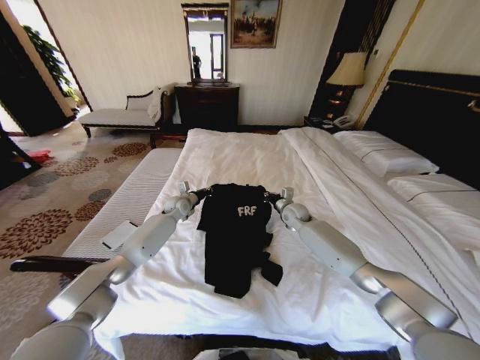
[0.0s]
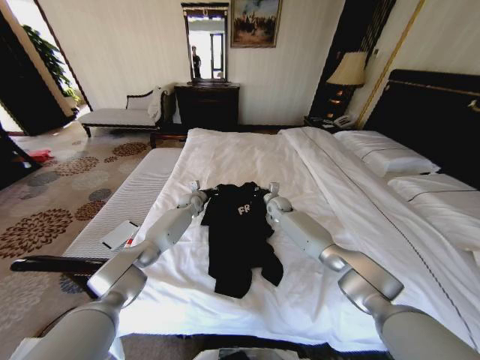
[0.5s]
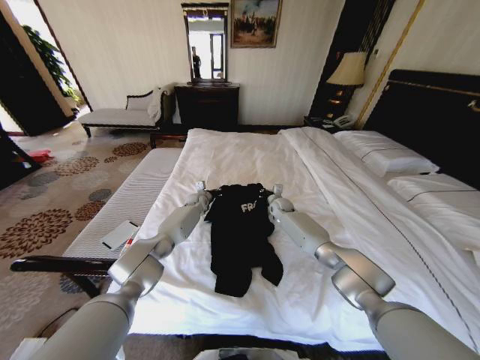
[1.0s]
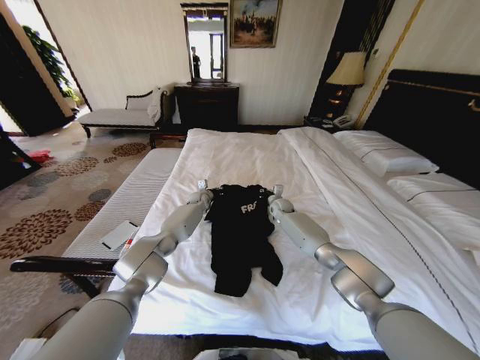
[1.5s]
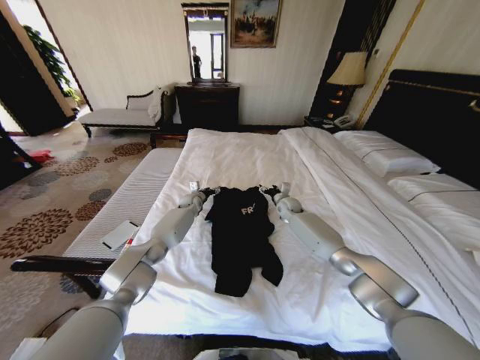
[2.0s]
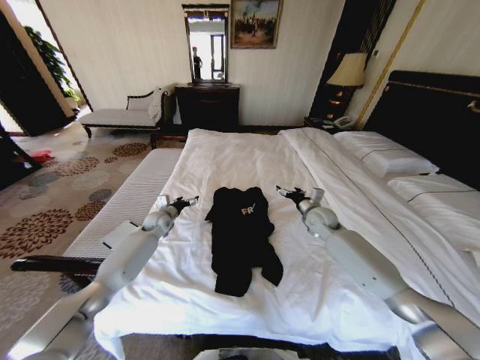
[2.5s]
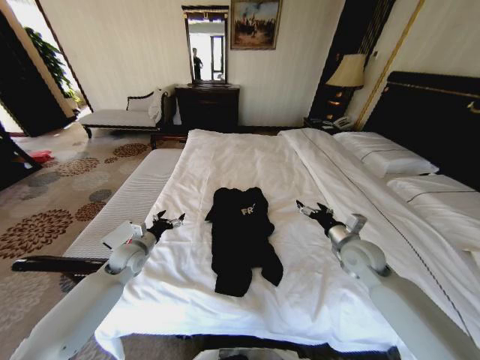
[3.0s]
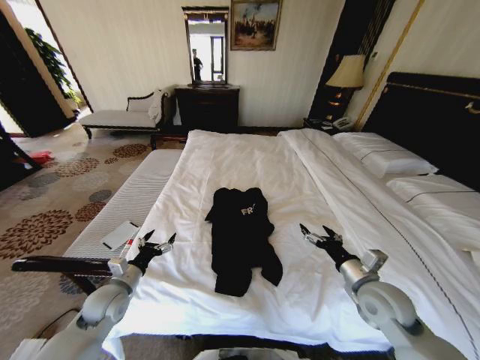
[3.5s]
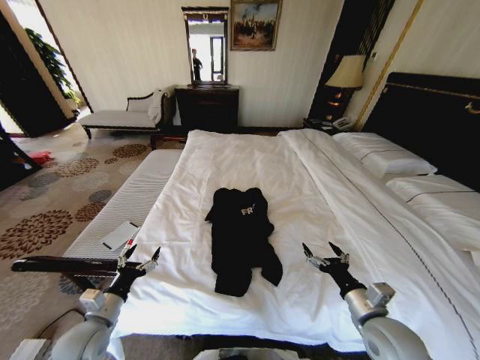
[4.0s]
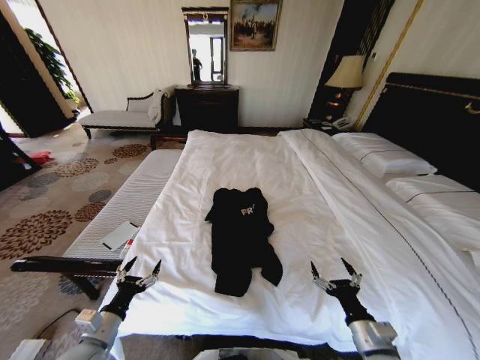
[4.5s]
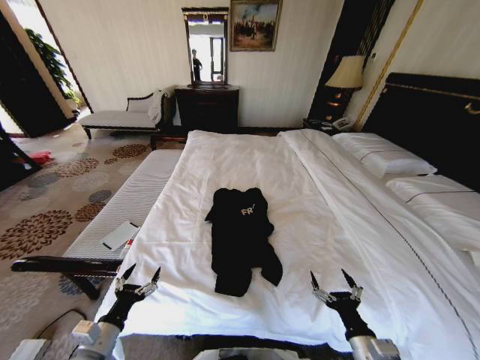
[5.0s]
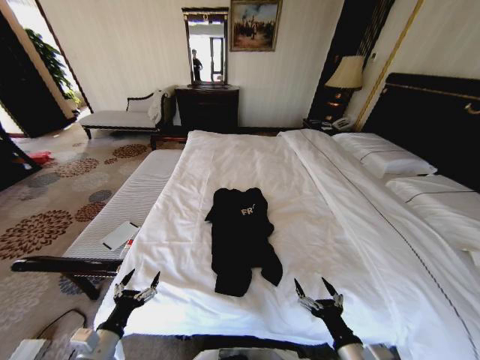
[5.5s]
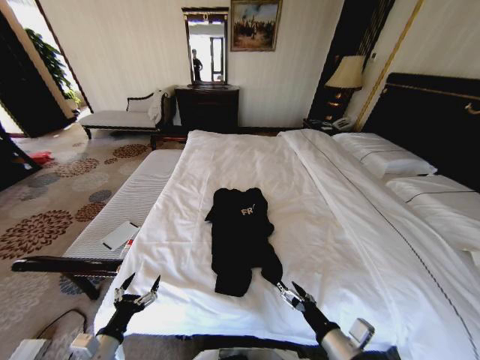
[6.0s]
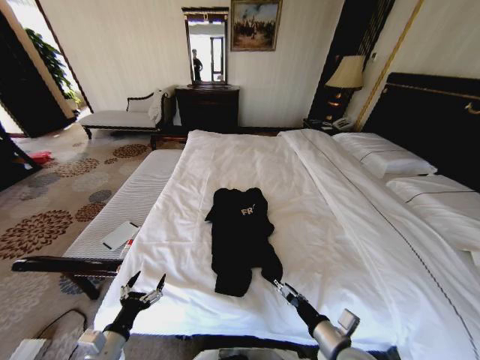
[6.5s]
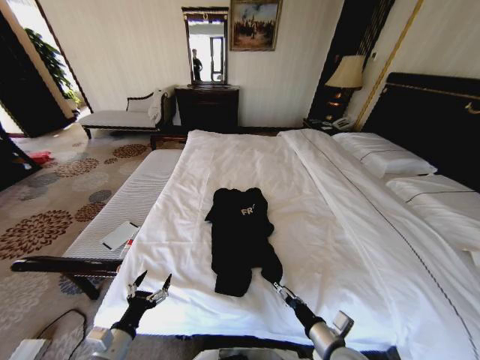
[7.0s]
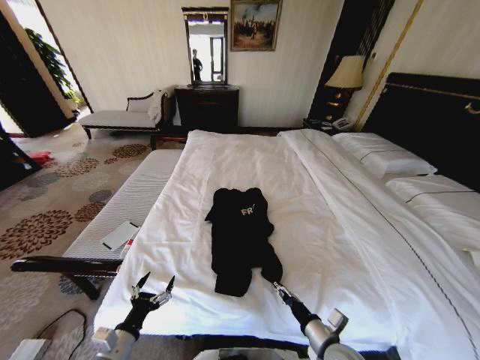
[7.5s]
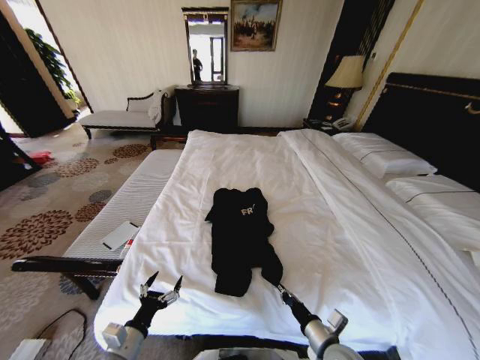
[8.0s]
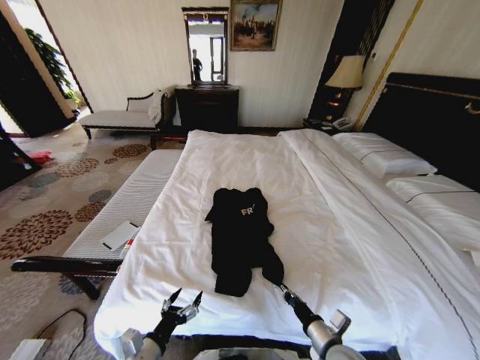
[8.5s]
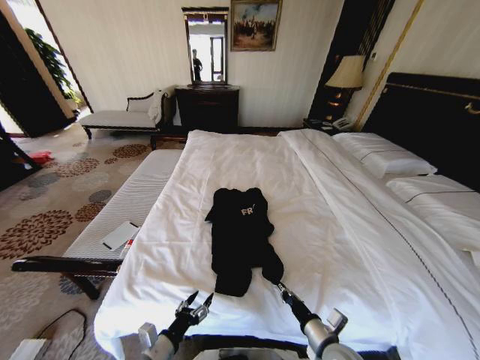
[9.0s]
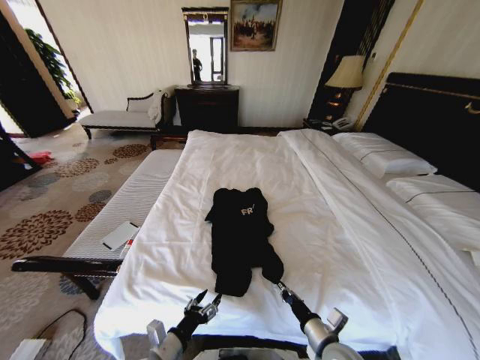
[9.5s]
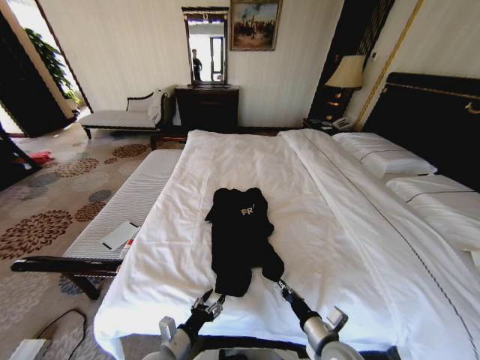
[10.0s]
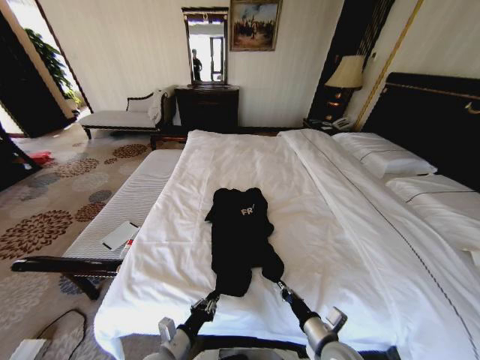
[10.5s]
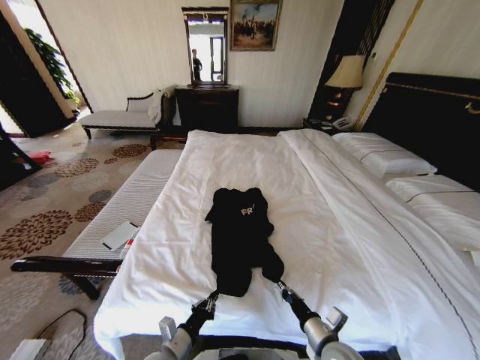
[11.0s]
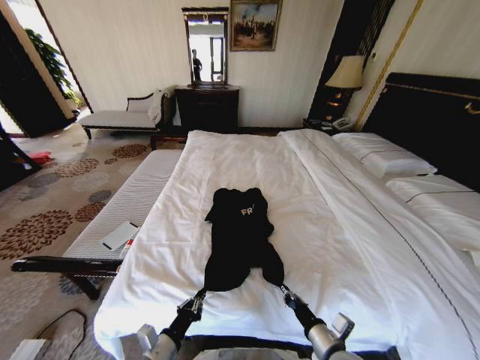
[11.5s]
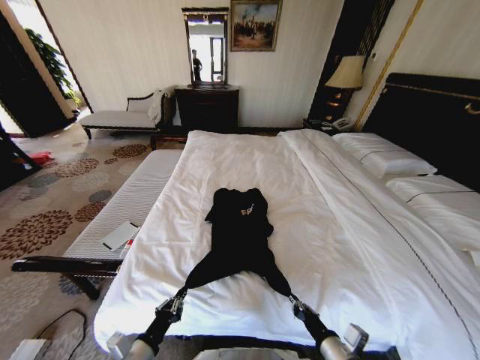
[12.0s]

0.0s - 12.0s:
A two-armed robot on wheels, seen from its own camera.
Task of the whole recording: Fold the clothes on the bed.
0.0s - 2.0s: The grippers both shift forward by approximately 5 cm. The left gripper opens up. Meanwhile the right gripper opens.
2.0s - 4.0s: The grippers both shift backward by approximately 40 cm.
4.0s - 6.0s: The left gripper goes roughly 10 cm backward. The right gripper heads backward and to the left, covering roughly 10 cm.
6.0s - 8.0s: The right gripper travels downward by roughly 5 cm, and closes its fingers.
8.0s - 10.0s: The left gripper goes roughly 10 cm to the right.
10.0s - 12.0s: The right gripper moves some 5 cm; the left gripper is displaced to the left and upward by some 10 cm, and closes.

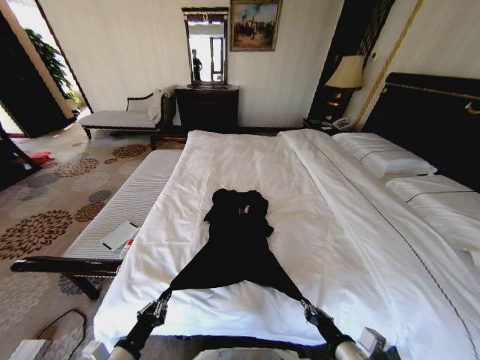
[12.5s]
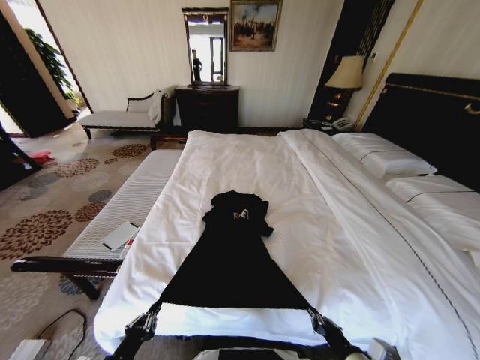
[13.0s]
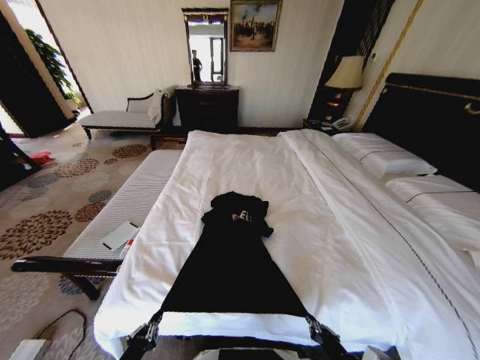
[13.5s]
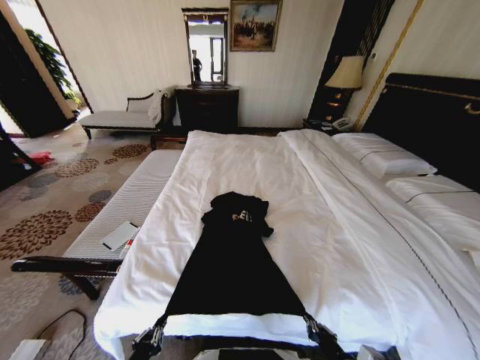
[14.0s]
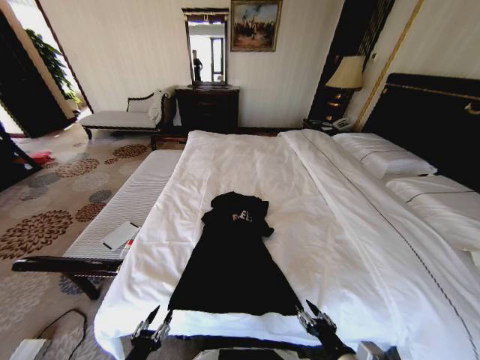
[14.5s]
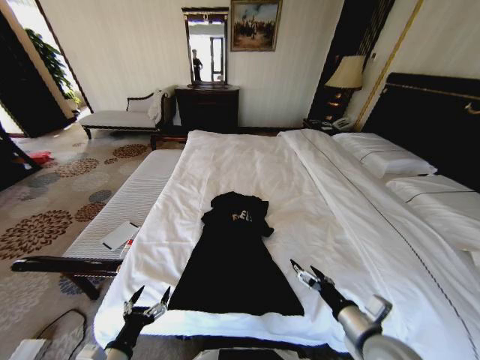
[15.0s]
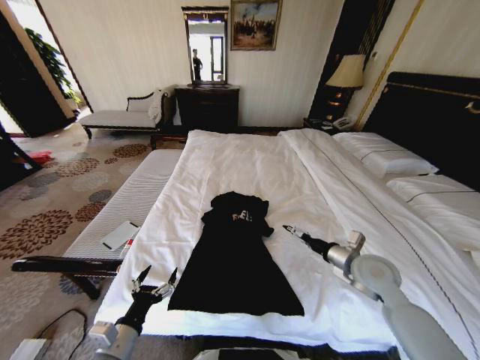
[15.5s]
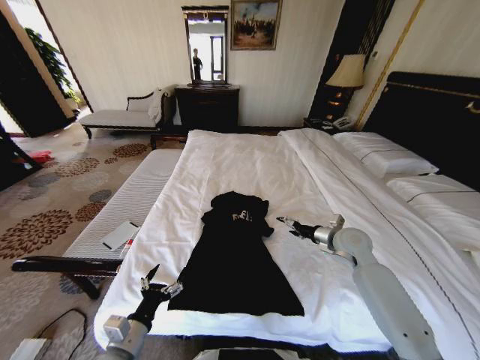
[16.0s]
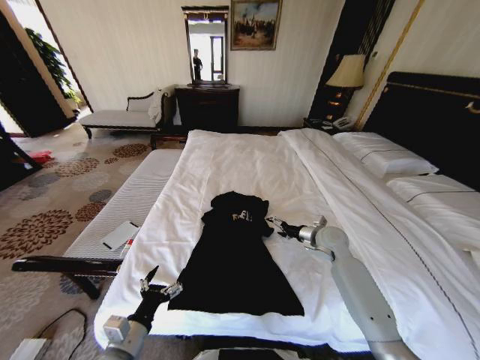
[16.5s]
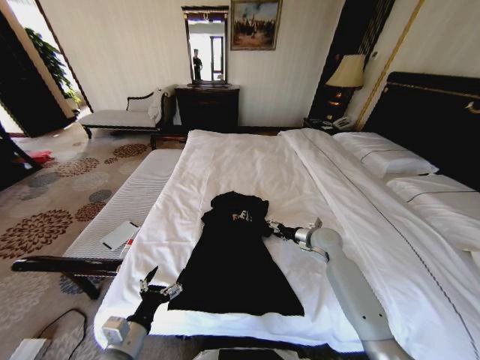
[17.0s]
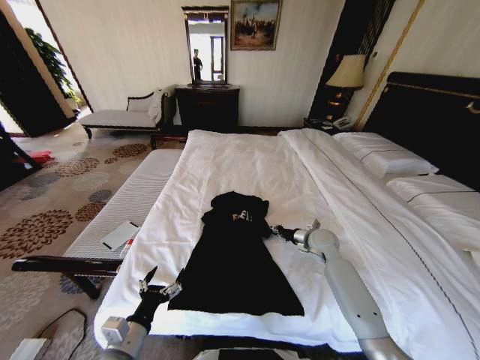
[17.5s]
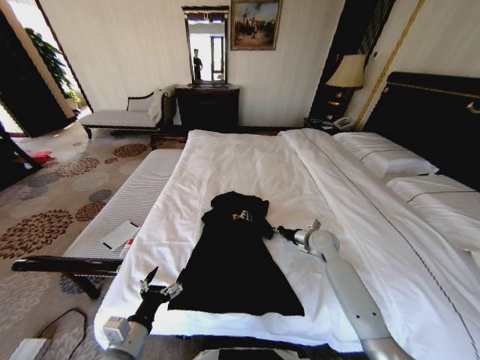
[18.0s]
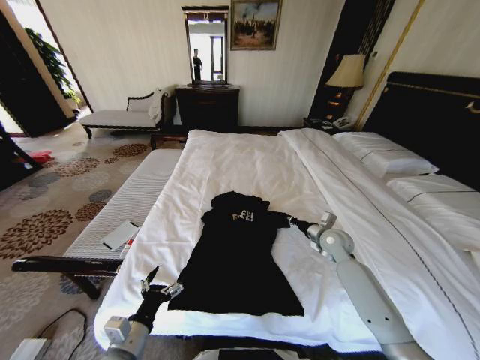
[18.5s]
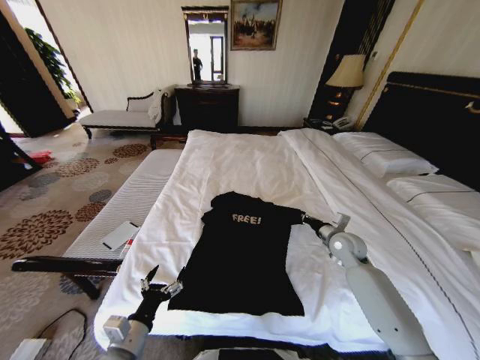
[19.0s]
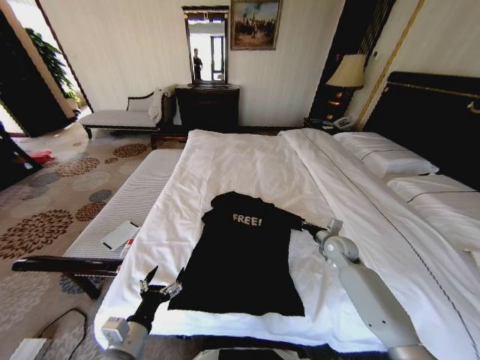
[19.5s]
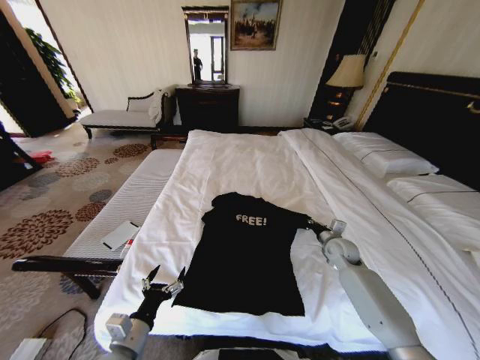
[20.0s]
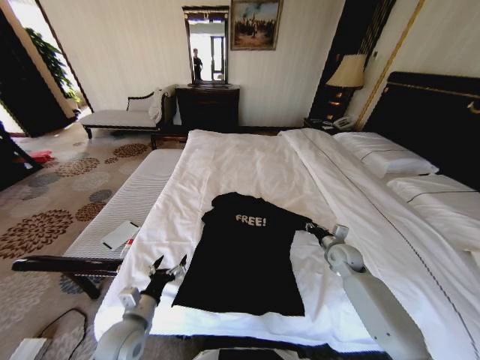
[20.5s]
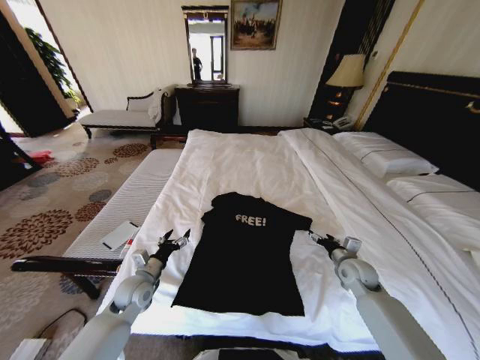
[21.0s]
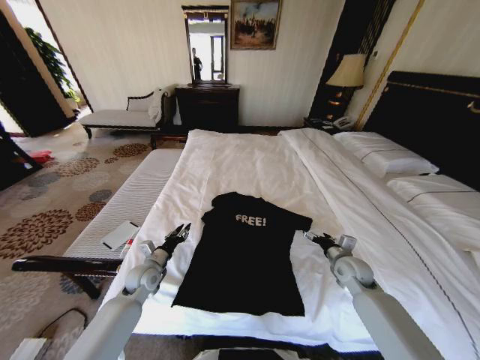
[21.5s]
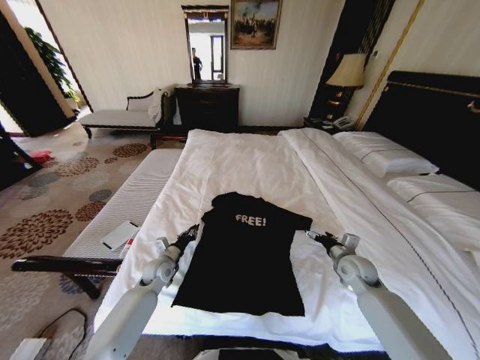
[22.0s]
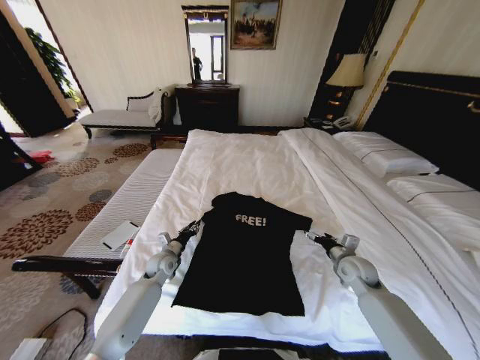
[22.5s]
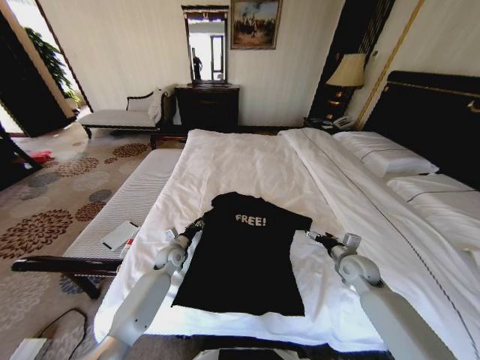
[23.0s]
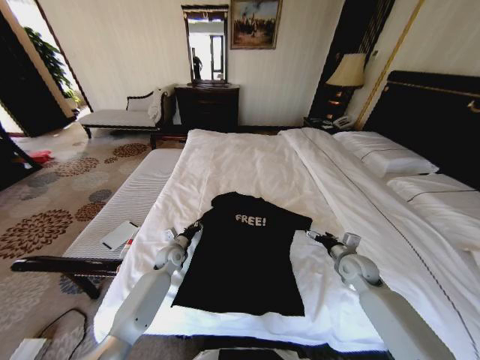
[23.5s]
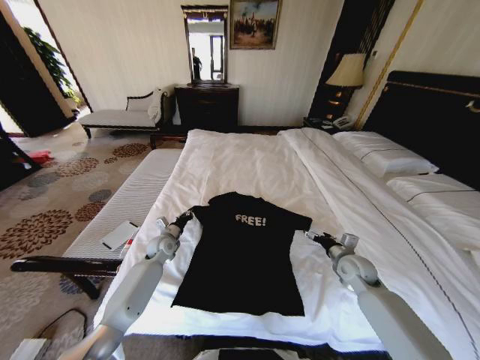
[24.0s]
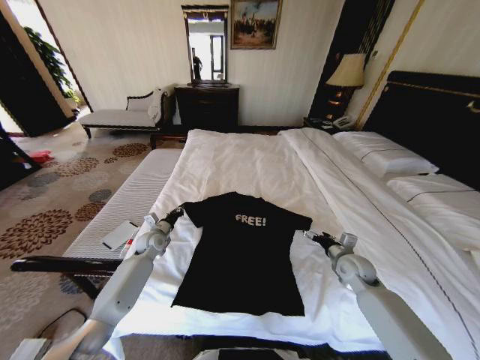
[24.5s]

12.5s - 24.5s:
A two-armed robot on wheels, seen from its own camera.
Task of the whole recording: Fold the clothes on the bed.
12.5s - 14.5s: The left gripper ends up roughly 5 cm from where it was, and opens, while the right gripper opens its fingers.
14.5s - 16.5s: The right gripper shifts about 35 cm forward, and opens up, while the left gripper shifts some 10 cm forward and upward, and opens its fingers.
16.5s - 18.5s: The right gripper closes up.
18.5s - 20.5s: The left gripper is displaced forward by roughly 5 cm. The right gripper shifts roughly 5 cm downward.
20.5s - 22.5s: The right gripper travels backward by some 5 cm, and opens, while the left gripper goes some 20 cm forward, and closes its fingers.
22.5s - 24.5s: The left gripper goes about 10 cm forward and to the left.

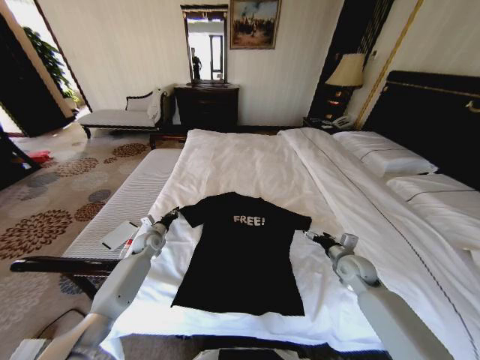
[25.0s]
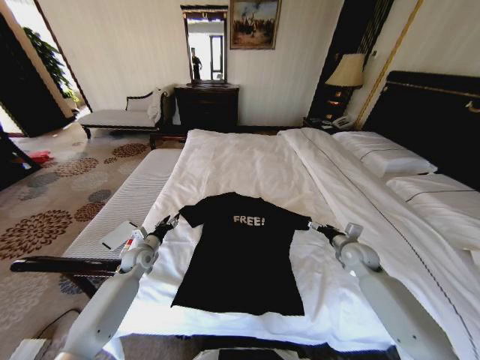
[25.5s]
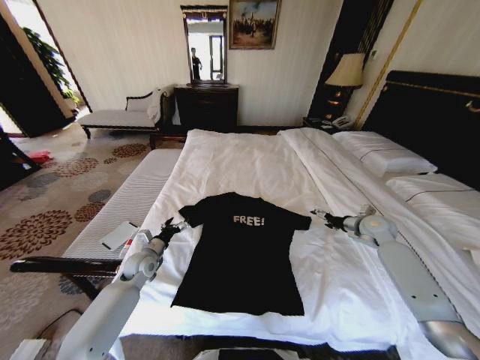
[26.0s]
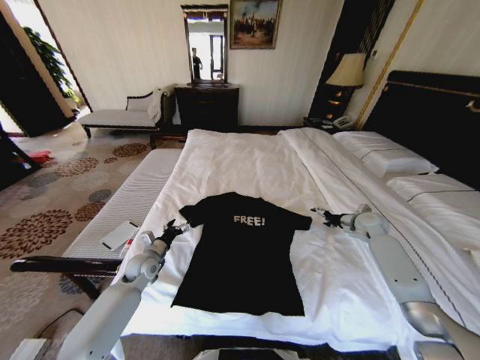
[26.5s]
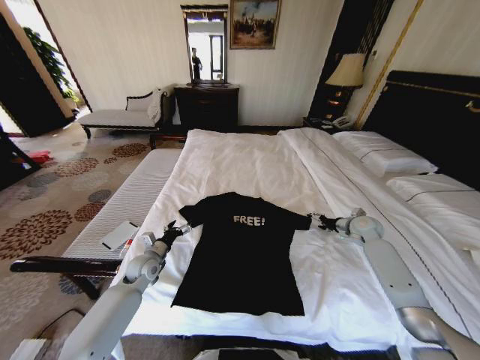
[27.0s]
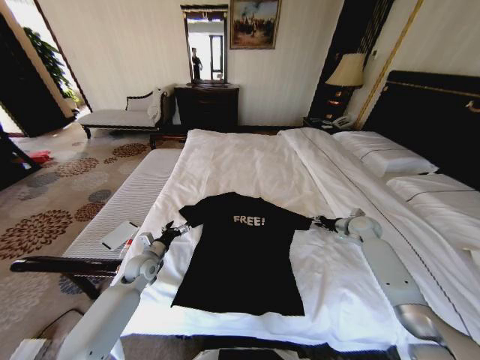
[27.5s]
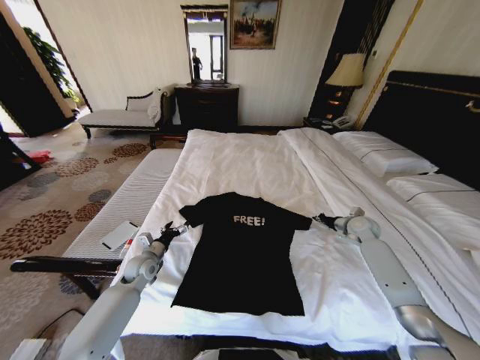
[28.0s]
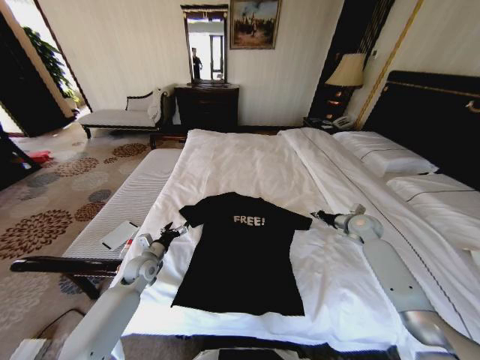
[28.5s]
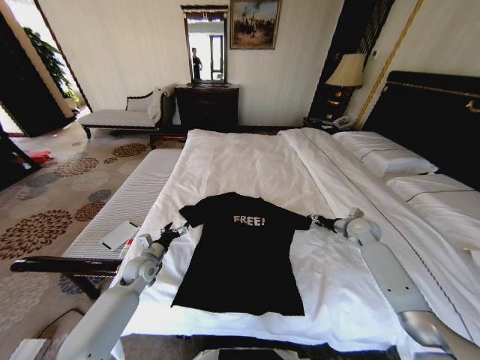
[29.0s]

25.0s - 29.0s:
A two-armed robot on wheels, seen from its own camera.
Task of the whole recording: Fold the clothes on the bed.
25.0s - 27.0s: The right gripper travels forward and to the right by approximately 15 cm. The left gripper moves backward, approximately 10 cm, and opens its fingers.
27.0s - 29.0s: The right gripper closes its fingers.
